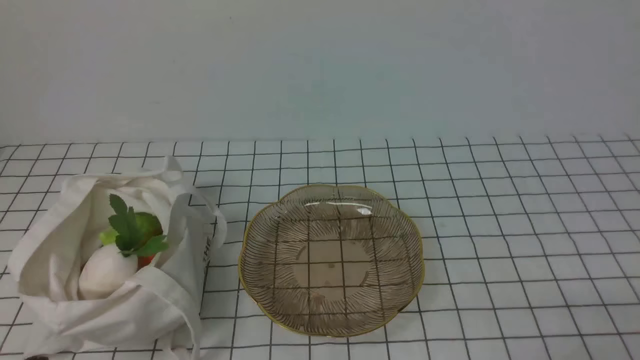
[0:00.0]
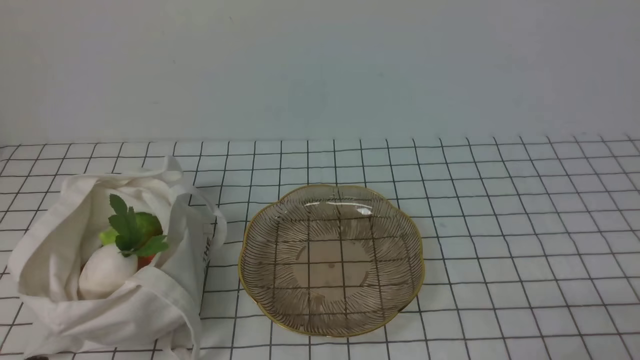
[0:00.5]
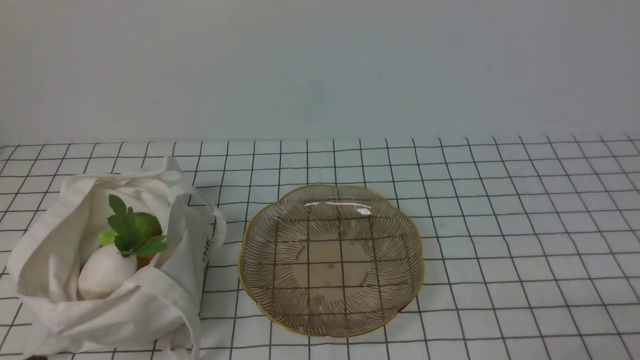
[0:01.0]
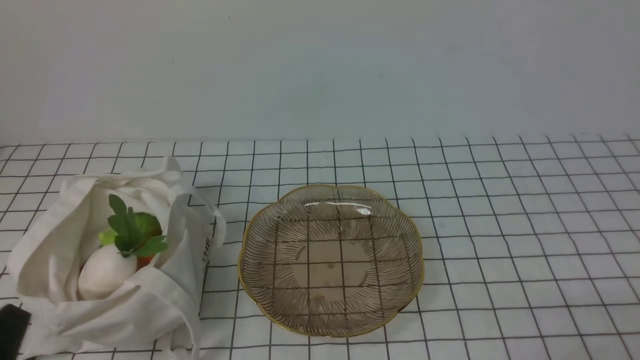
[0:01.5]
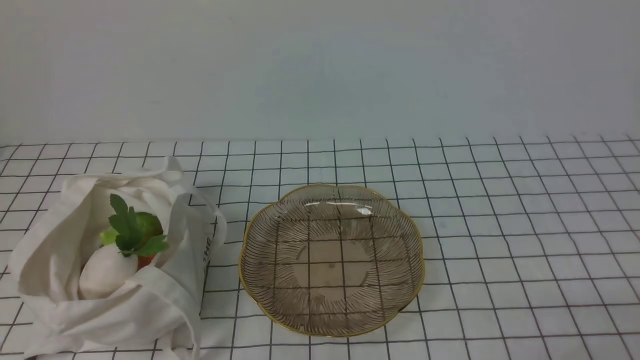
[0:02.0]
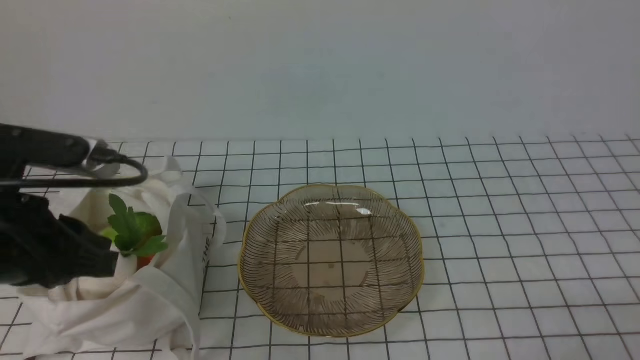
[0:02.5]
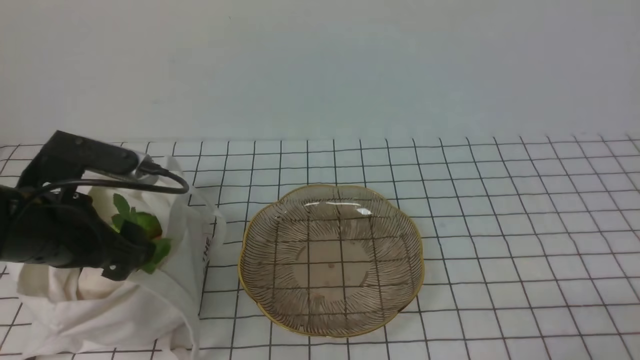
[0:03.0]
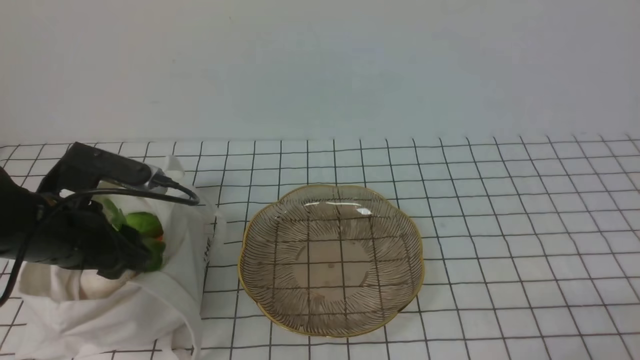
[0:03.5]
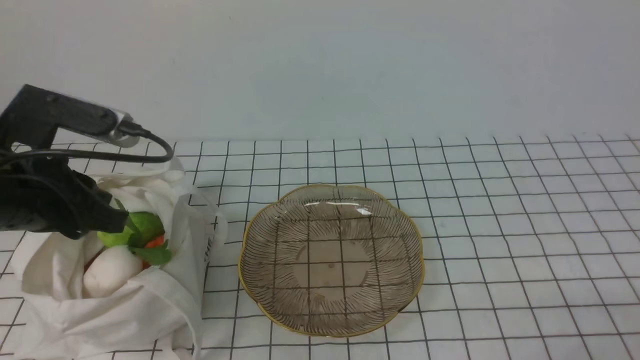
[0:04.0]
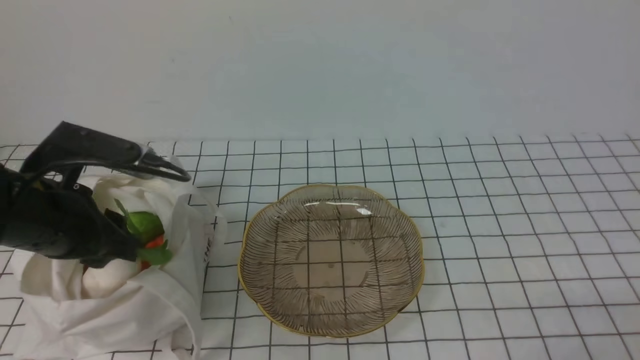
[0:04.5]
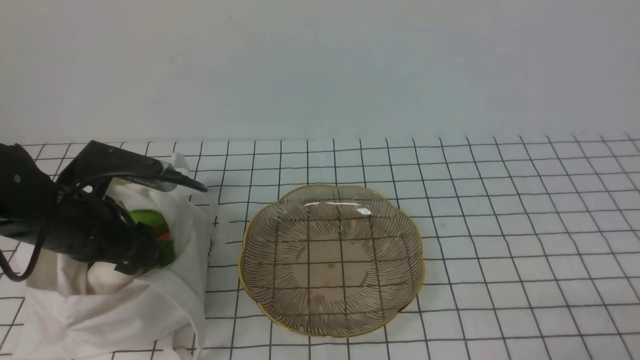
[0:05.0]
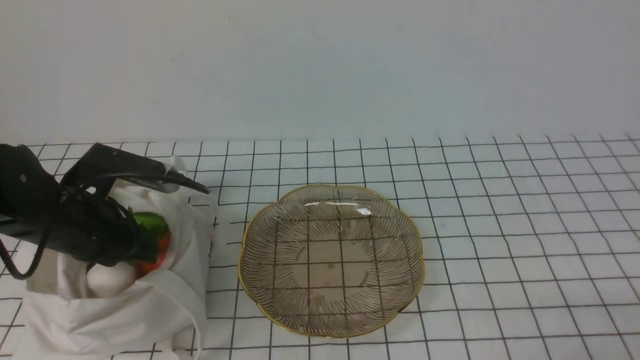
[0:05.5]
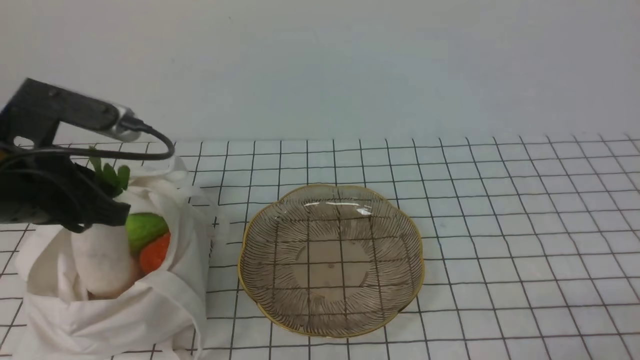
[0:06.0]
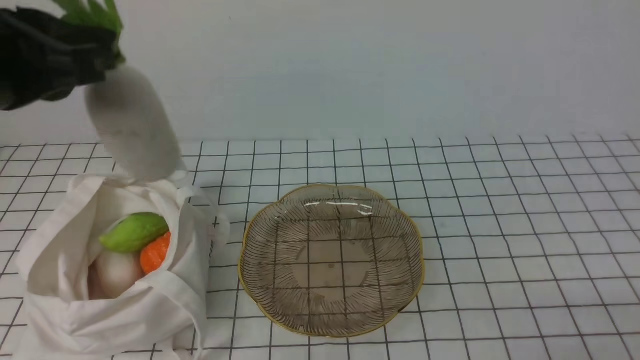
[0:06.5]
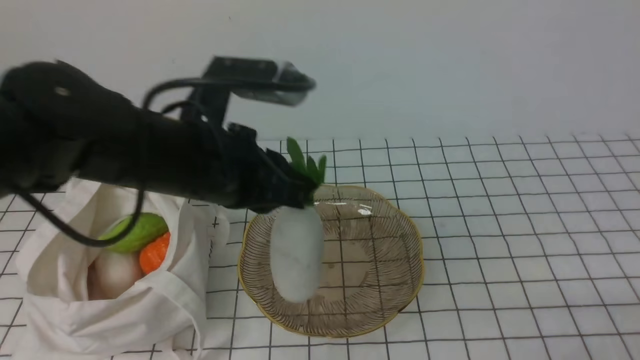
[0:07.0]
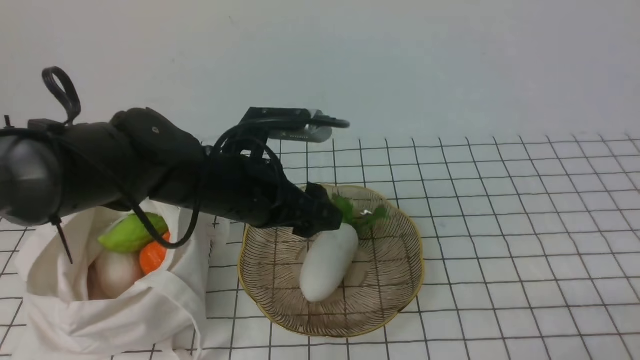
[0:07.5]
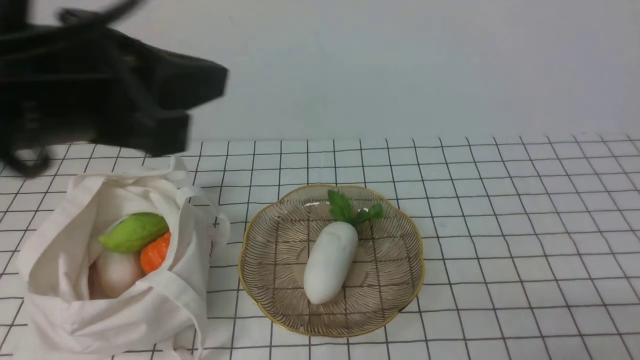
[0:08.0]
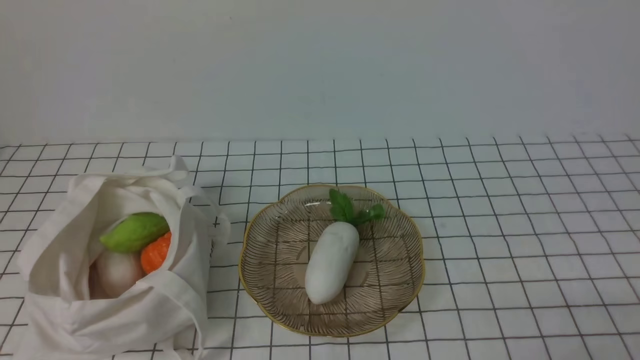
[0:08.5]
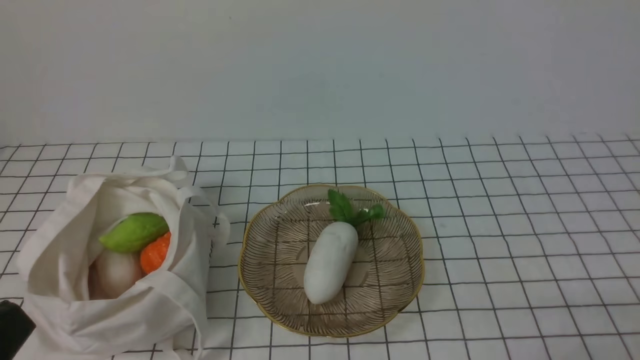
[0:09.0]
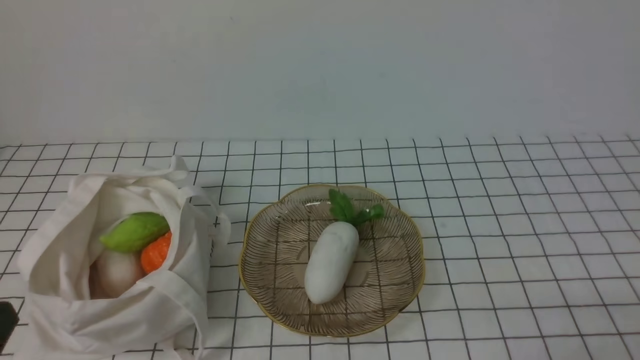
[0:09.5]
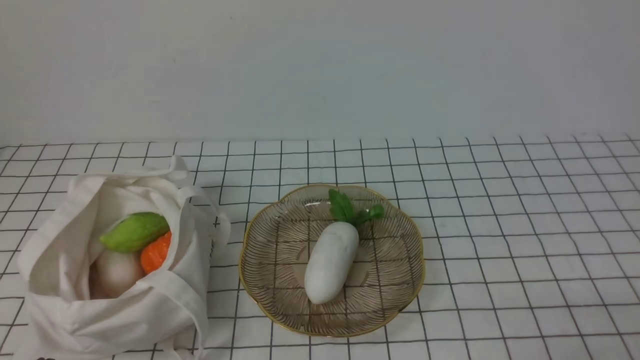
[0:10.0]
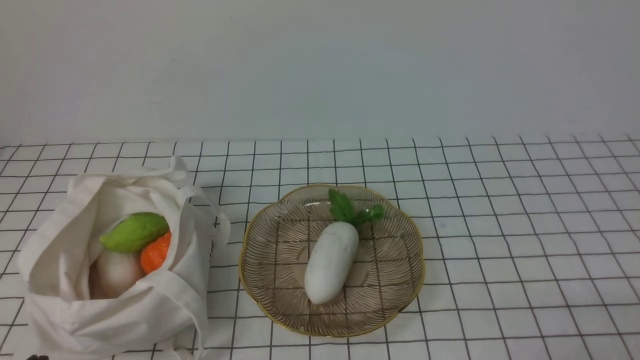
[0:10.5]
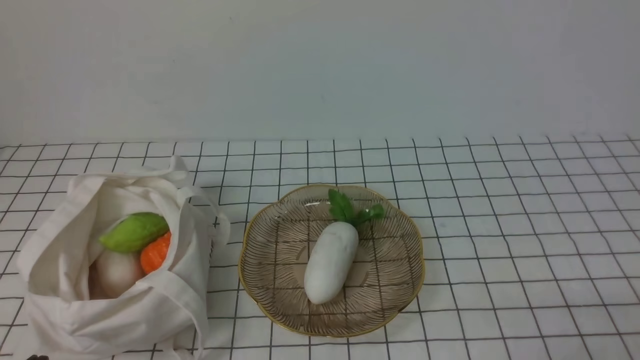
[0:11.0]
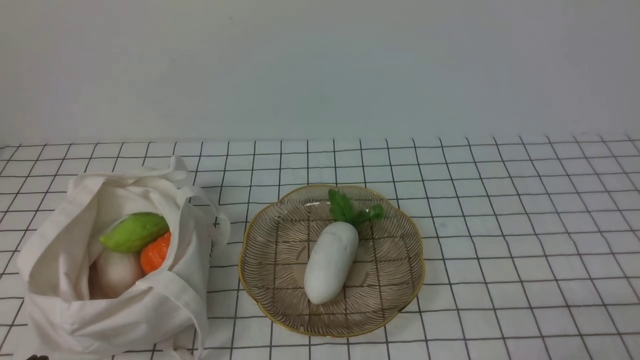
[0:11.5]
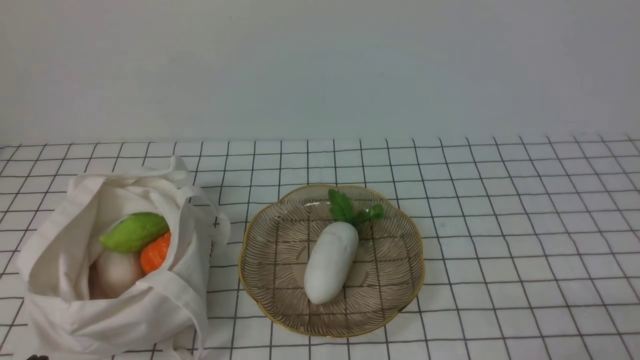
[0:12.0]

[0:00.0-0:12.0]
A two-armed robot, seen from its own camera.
Task of the whole recording: take vegetables from bag on white checkered tablecloth place on plate.
Step, 0:00.0 to 0:05.0: Grasp the radish with left gripper.
Step, 0:05.5 to 0:07.5: Place the radish on the plate with left gripper.
0:02.0 to 0:04.0: The left gripper moves forward, roughly 15 cm, and opens, then closes again.
0:04.0 to 0:06.0: The left gripper goes downward and returns, roughly 5 cm each way, and opens, then closes once more.
0:06.0 to 0:08.0: The left gripper goes up and down, approximately 15 cm each way, reversing 2 times, and opens and closes again.
0:08.0 to 0:10.0: The left gripper travels downward and backward by some 25 cm.
0:10.0 to 0:12.0: Both grippers stay put.
